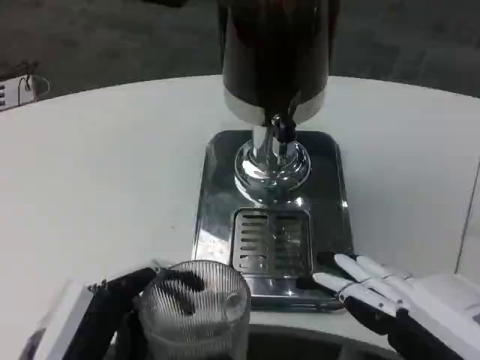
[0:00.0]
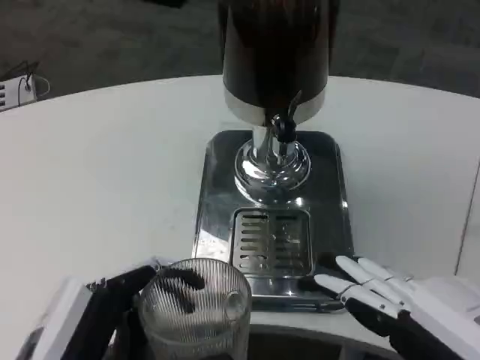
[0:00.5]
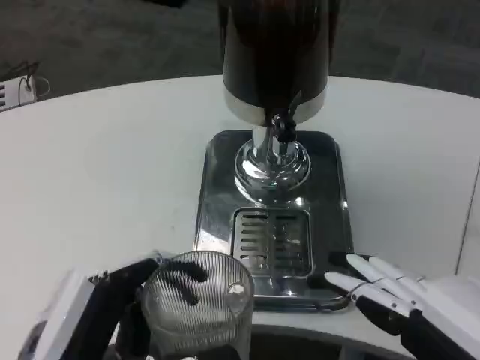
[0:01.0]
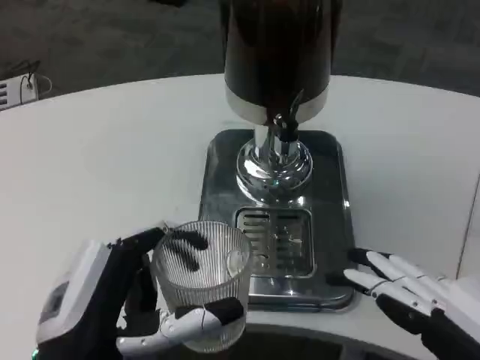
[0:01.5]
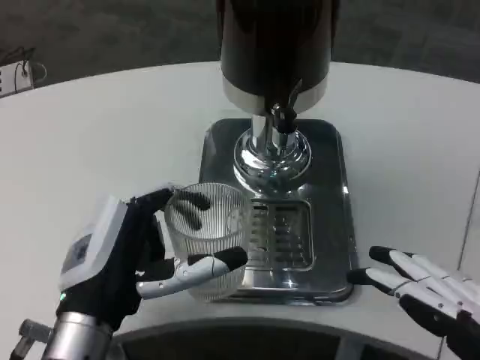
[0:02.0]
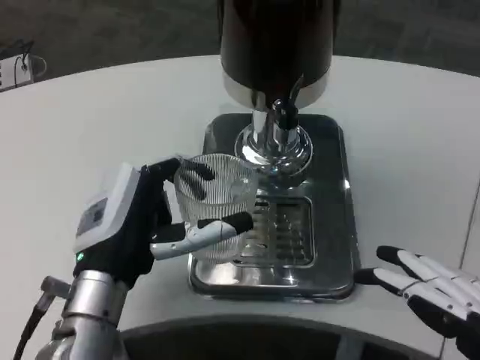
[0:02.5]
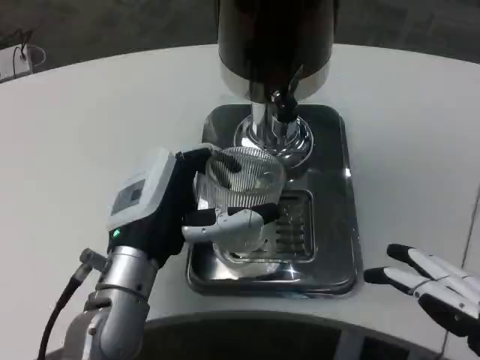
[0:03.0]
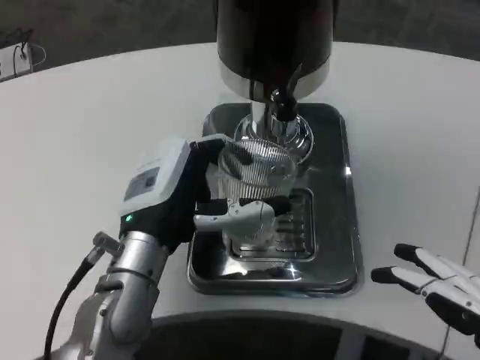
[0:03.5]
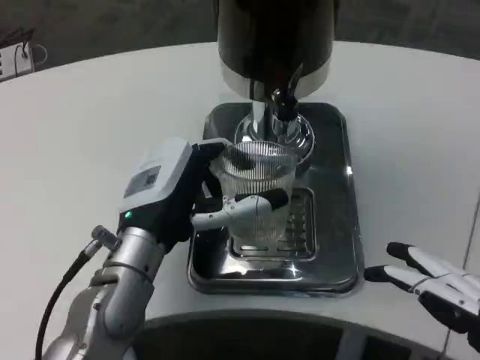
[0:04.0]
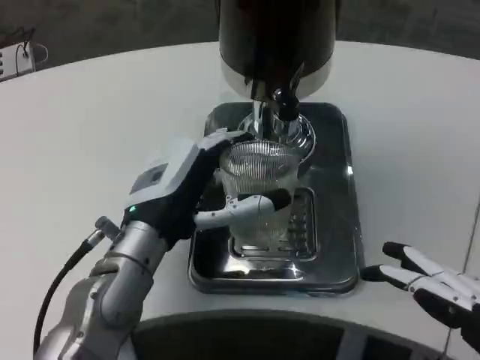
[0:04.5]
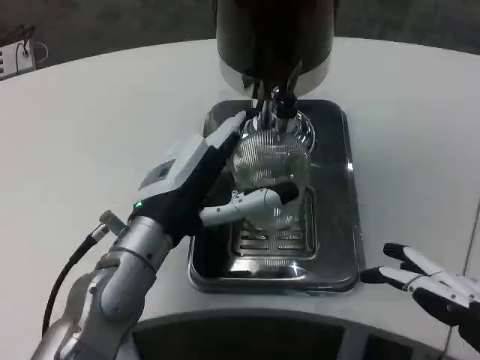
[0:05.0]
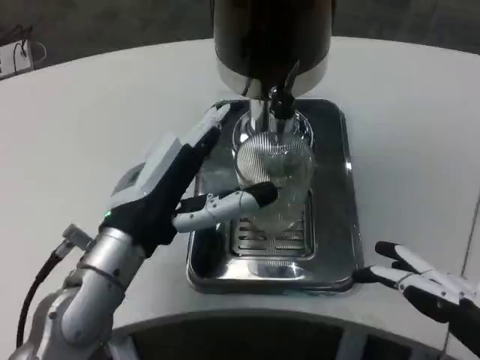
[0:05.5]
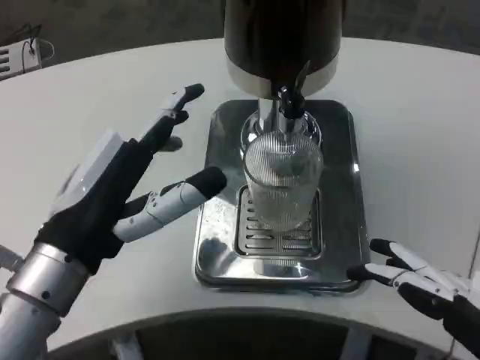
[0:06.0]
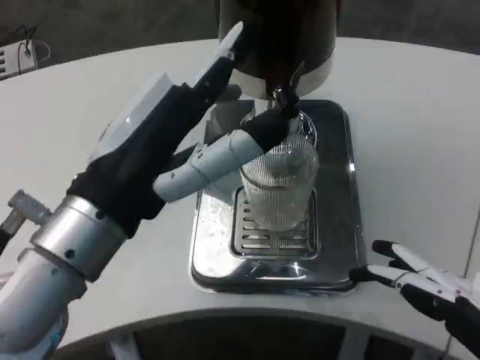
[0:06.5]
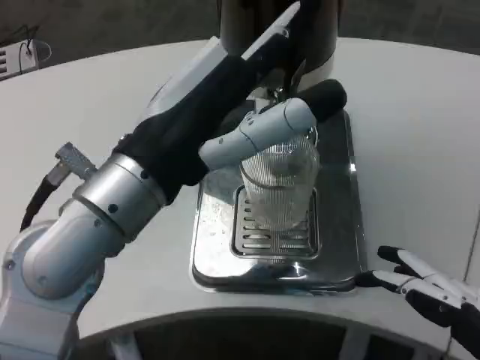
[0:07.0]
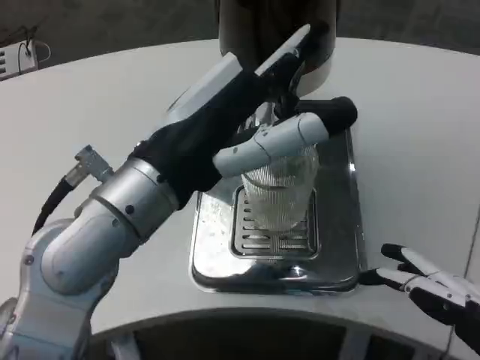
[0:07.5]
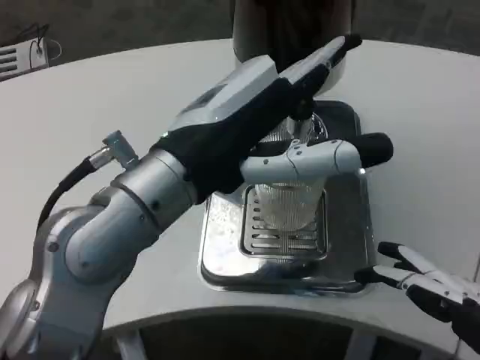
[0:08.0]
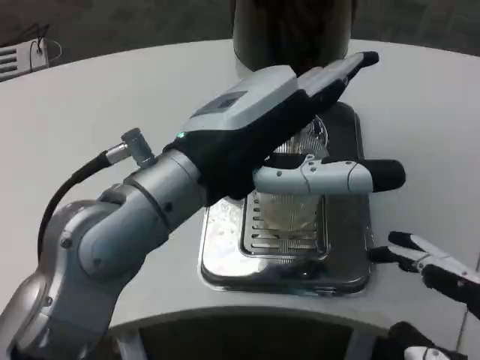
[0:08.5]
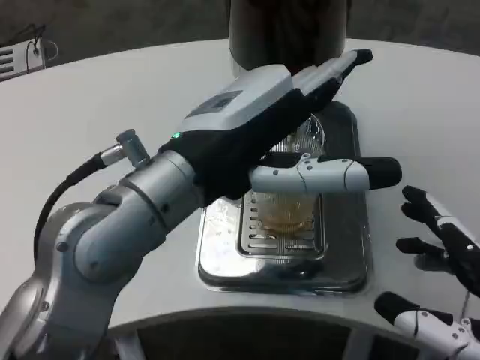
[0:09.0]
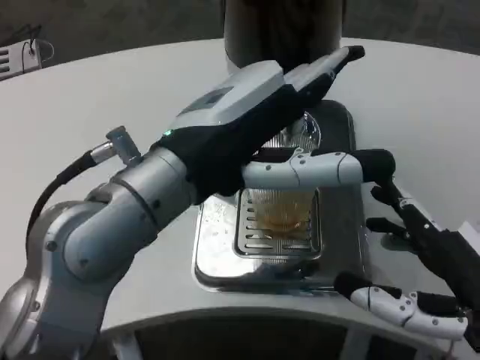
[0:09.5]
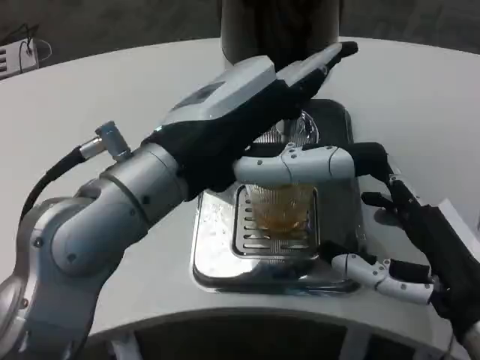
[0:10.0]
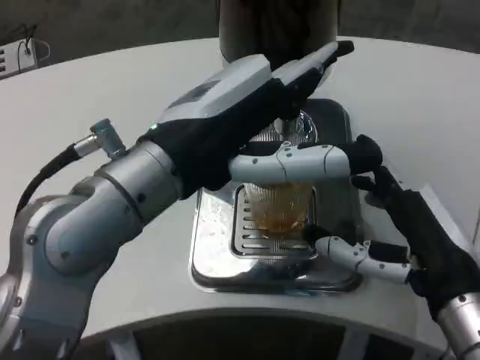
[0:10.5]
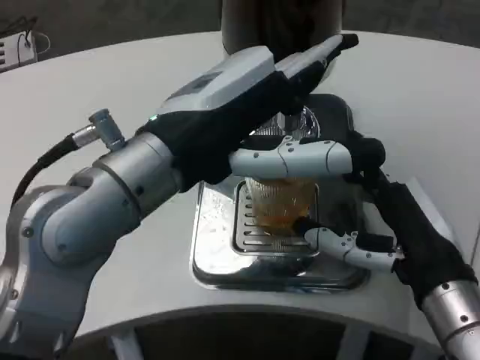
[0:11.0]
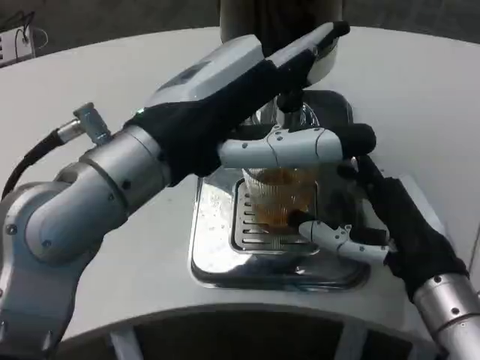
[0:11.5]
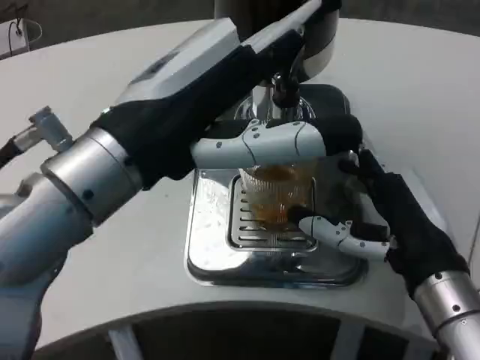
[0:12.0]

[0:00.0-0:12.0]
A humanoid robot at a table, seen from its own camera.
Task of the whole recording: Grasp the cup under the faucet to collect the drink, then remove the cup.
0:00.0 to 0:02.0: The left hand shifts about 10 cm forward.
0:02.0 to 0:04.0: The left hand is displaced forward by some 5 cm.
0:04.0 to 0:06.0: The left hand travels backward and to the left by about 10 cm.
0:06.0 to 0:08.0: The left hand travels upward and to the right by some 10 cm.
0:08.0 to 0:10.0: The right hand moves forward, approximately 10 cm.

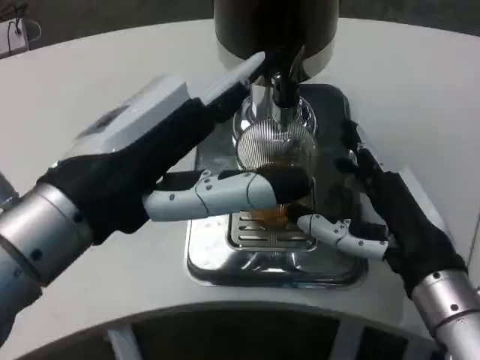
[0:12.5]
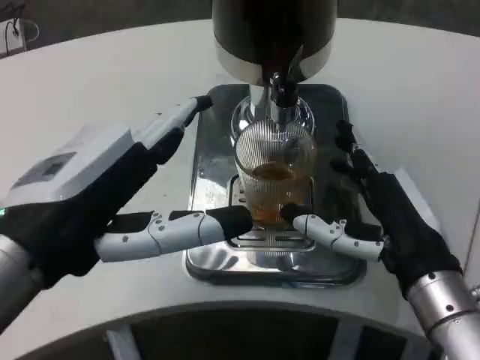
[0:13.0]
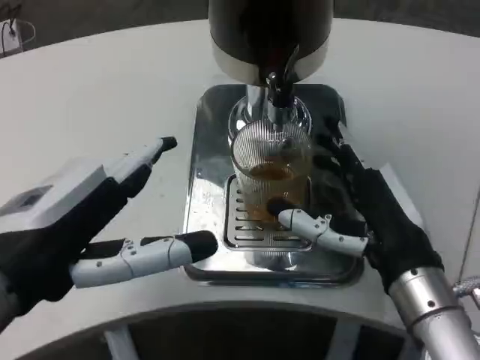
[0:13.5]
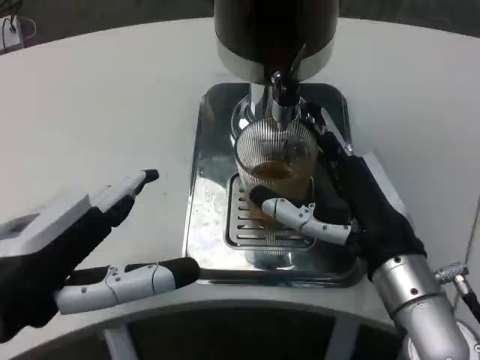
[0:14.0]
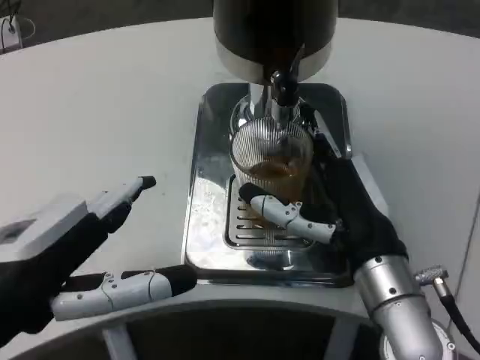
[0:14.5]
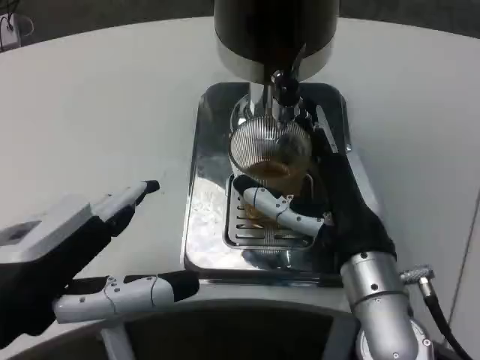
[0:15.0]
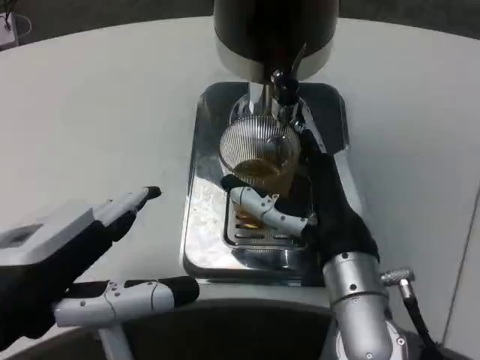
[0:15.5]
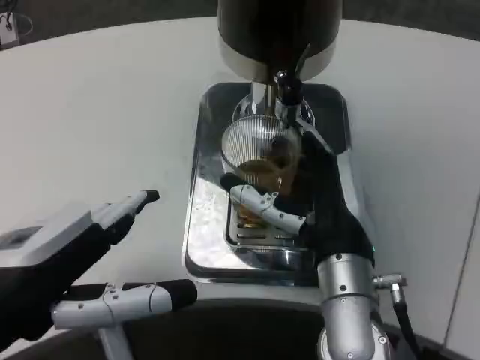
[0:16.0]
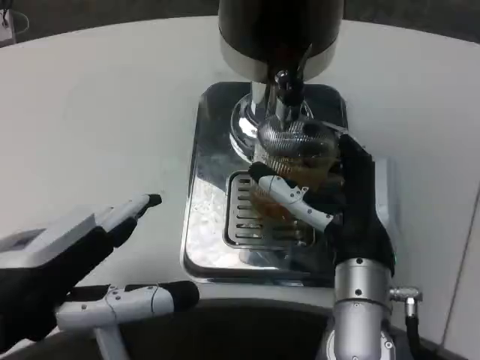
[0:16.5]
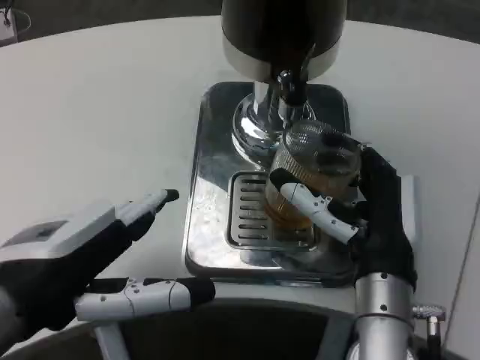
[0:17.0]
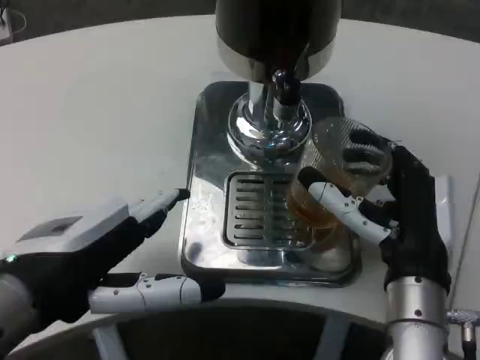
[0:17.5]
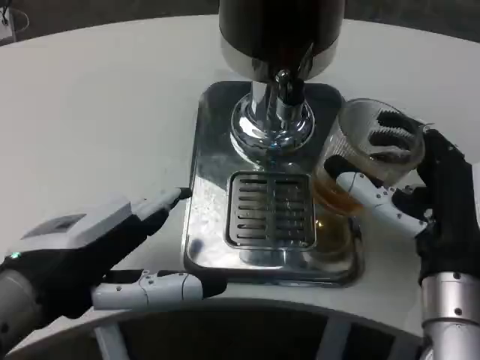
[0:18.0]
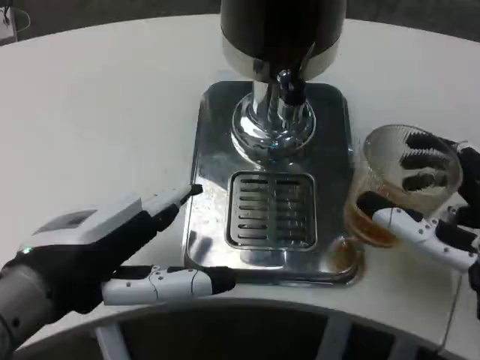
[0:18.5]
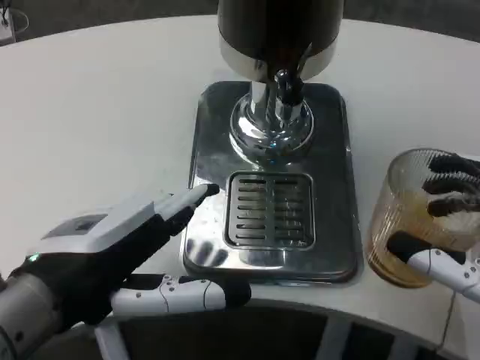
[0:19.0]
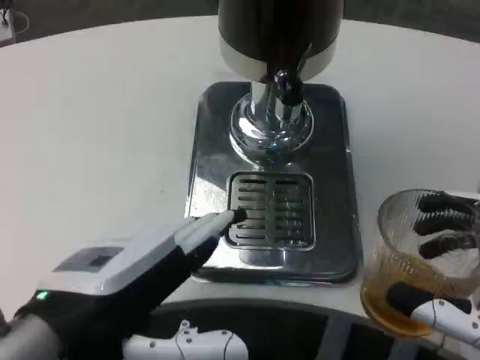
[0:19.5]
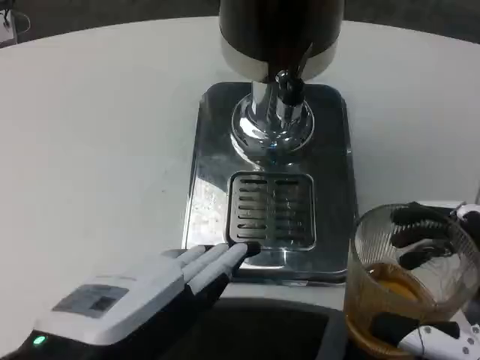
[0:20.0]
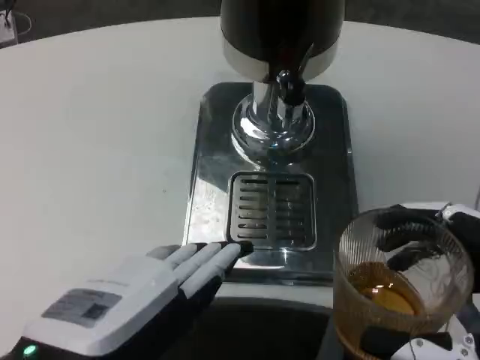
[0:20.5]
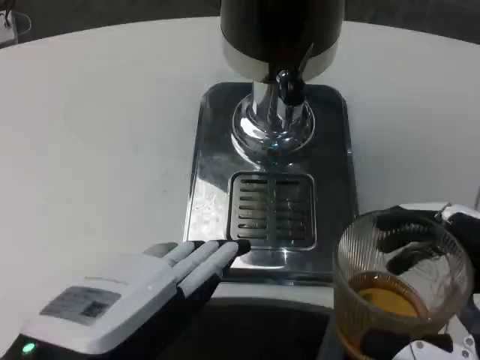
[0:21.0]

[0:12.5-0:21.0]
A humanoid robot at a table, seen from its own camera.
Task of the whole recording: Grasp the cup under the faucet to collect the drink, then remove the cup.
0:12.5 to 0:14.5: The left hand moves approximately 5 cm. Meanwhile the right hand moves roughly 5 cm.
0:16.5 to 0:19.0: The right hand moves to the right and backward, approximately 20 cm.
0:19.0 to 0:21.0: The left hand heads backward, covering roughly 5 cm. Meanwhile the right hand ends up approximately 5 cm from where it was.

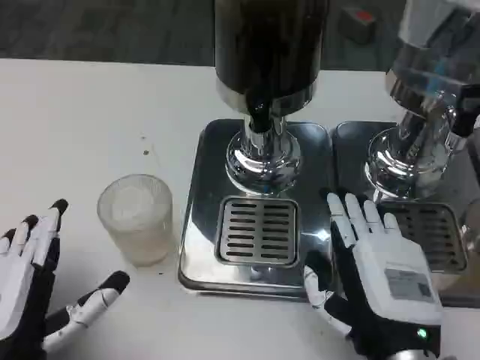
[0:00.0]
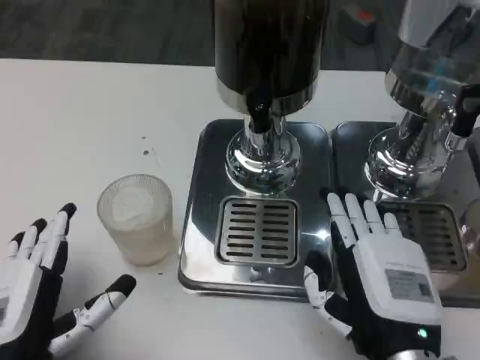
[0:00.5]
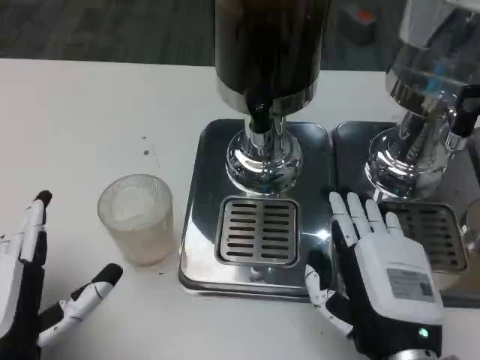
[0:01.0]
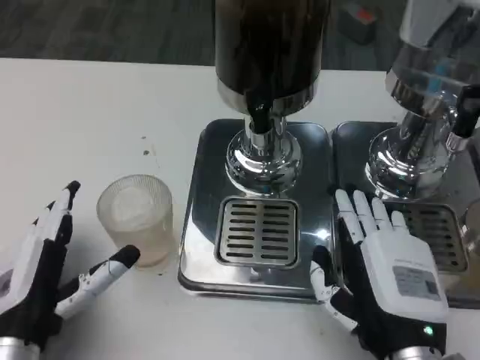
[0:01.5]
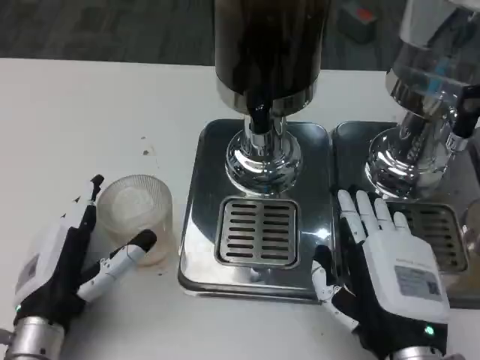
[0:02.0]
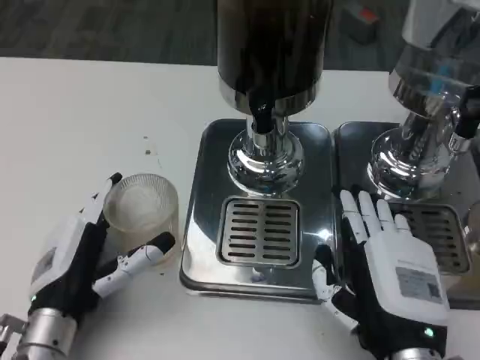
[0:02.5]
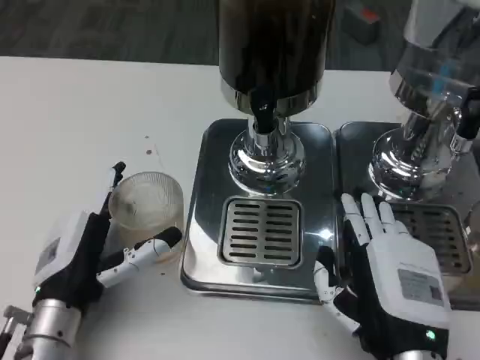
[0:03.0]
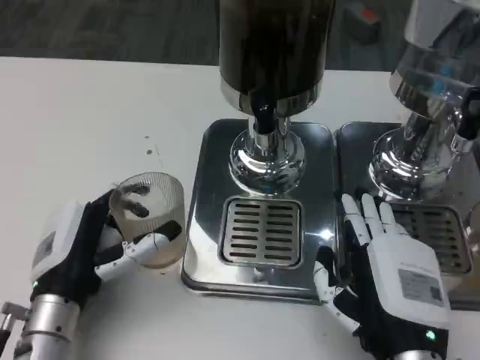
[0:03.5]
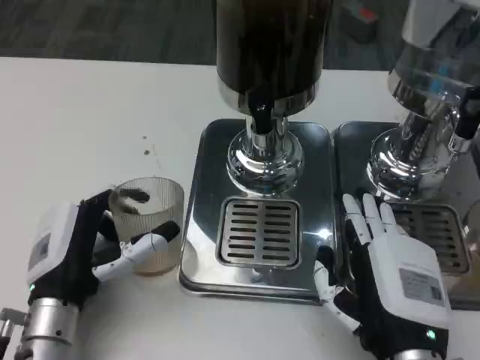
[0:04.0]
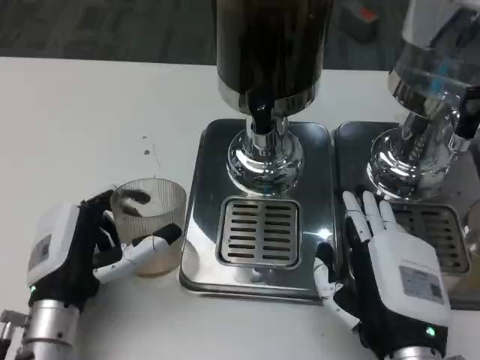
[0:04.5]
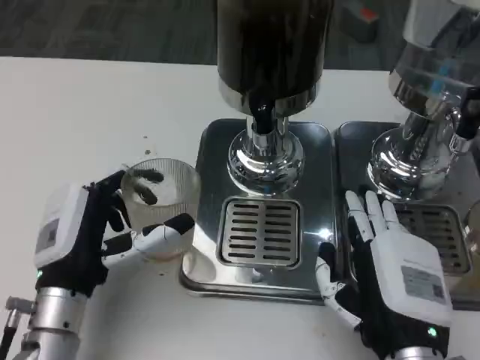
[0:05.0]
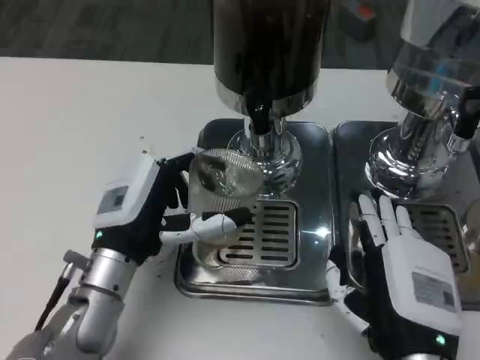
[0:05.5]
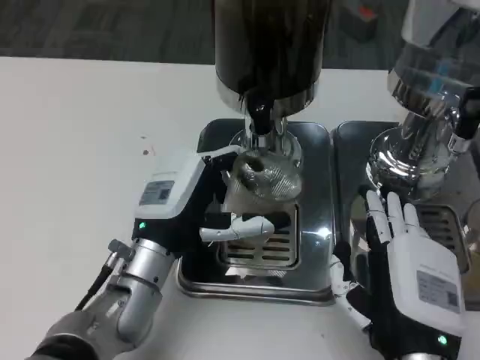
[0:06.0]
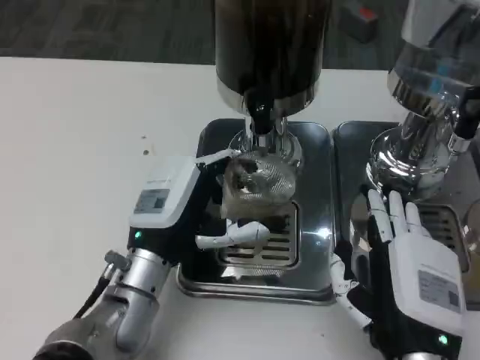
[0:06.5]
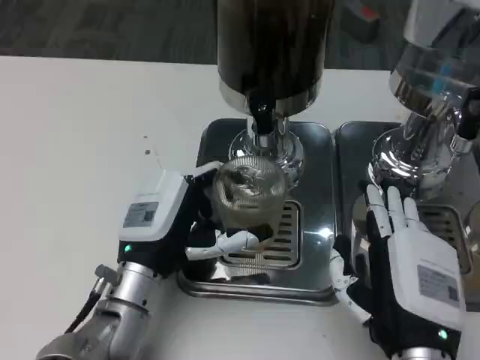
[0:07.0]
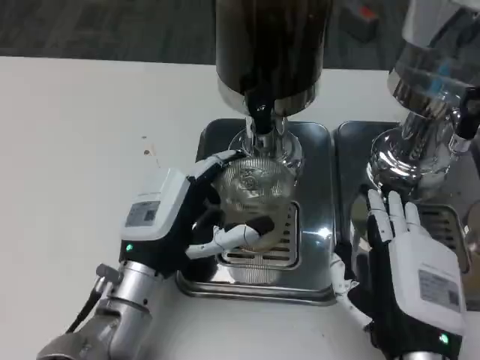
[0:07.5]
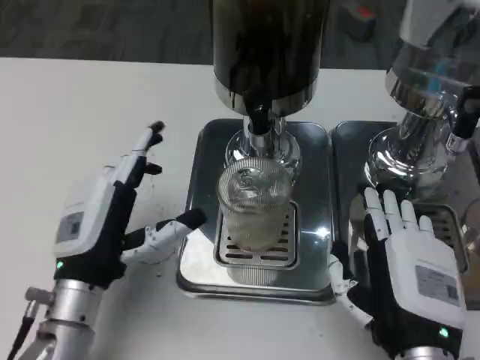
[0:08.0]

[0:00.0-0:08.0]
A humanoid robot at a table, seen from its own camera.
Task of the whole recording: Grasp the cup under the faucet to collect the drink, then remove the cup.
0:00.0 to 0:02.0: The left hand is displaced forward by approximately 5 cm.
0:02.0 to 0:04.0: The hands make only small movements.
0:04.0 to 0:06.0: The left hand shifts about 10 cm to the right and forward.
0:06.0 to 0:08.0: The left hand is displaced to the left by approximately 5 cm.
